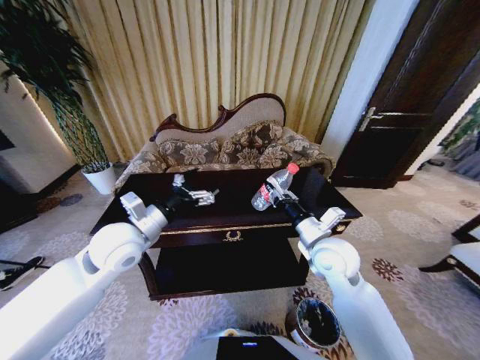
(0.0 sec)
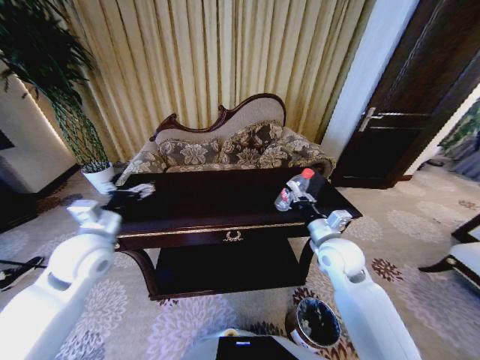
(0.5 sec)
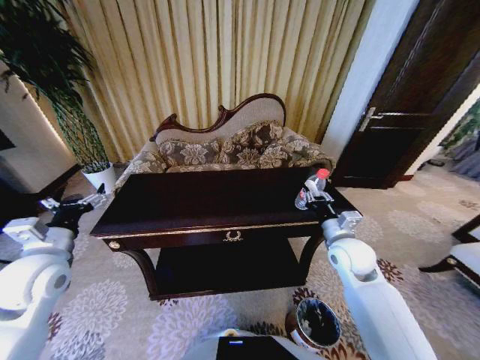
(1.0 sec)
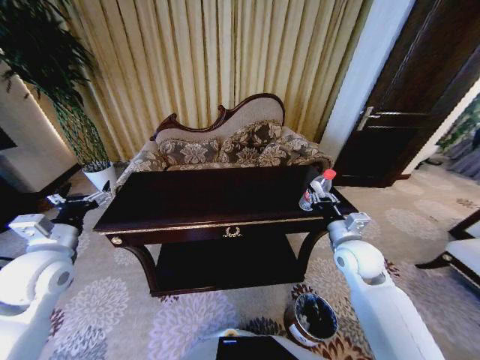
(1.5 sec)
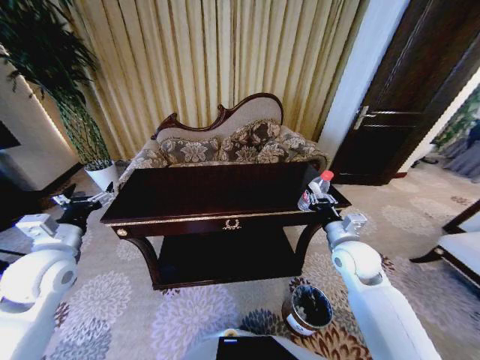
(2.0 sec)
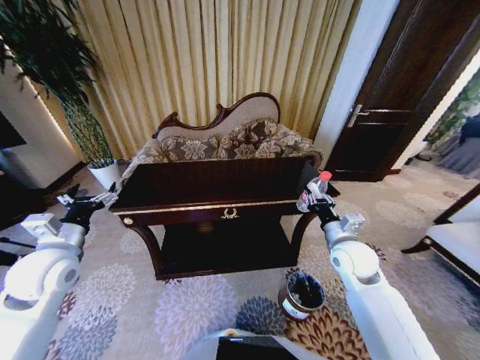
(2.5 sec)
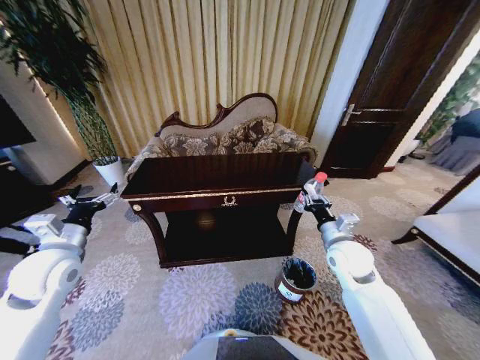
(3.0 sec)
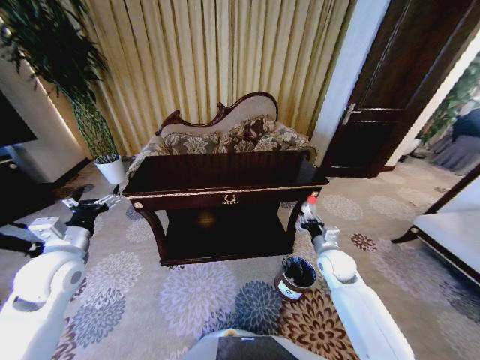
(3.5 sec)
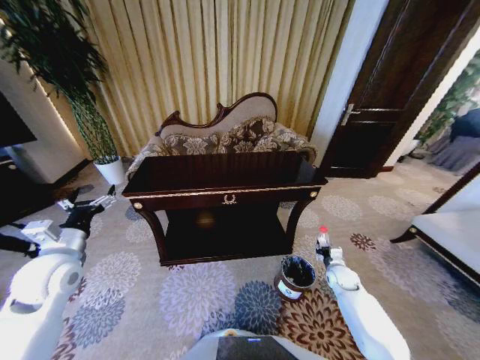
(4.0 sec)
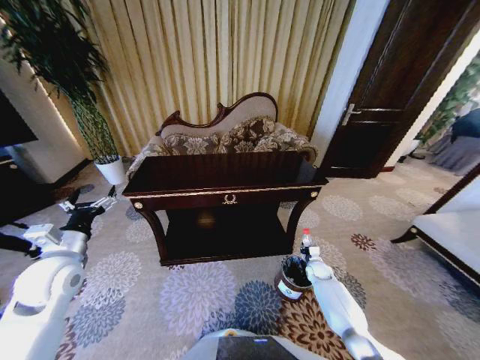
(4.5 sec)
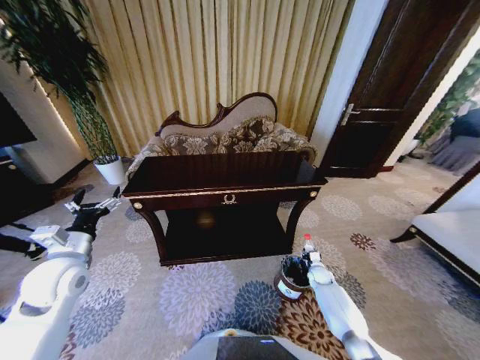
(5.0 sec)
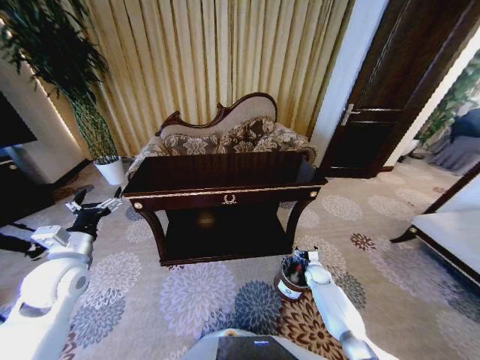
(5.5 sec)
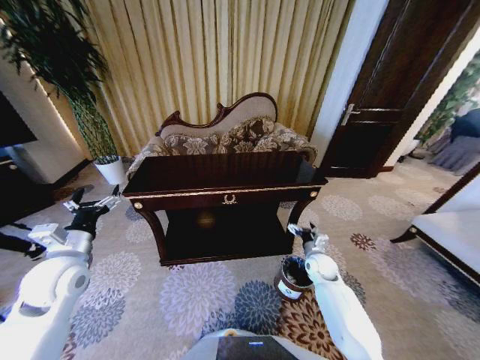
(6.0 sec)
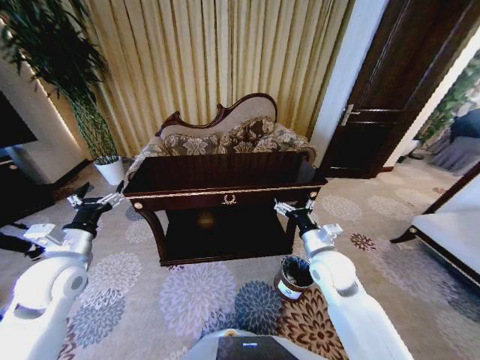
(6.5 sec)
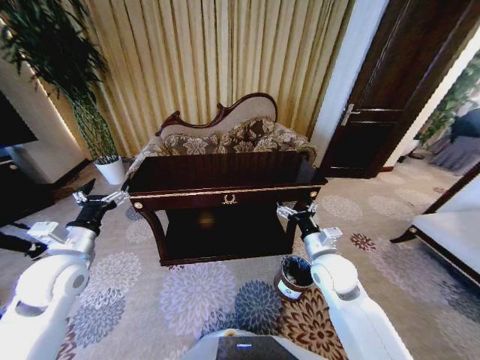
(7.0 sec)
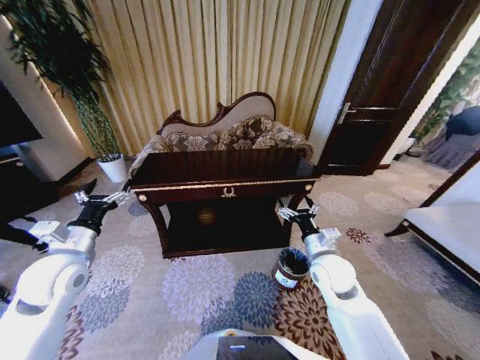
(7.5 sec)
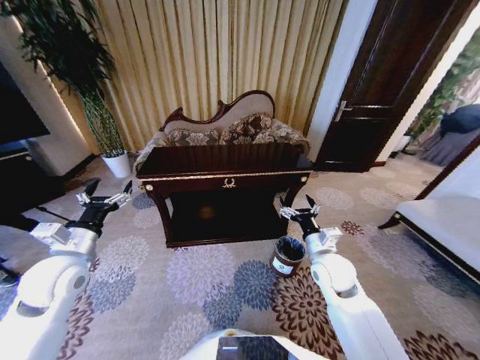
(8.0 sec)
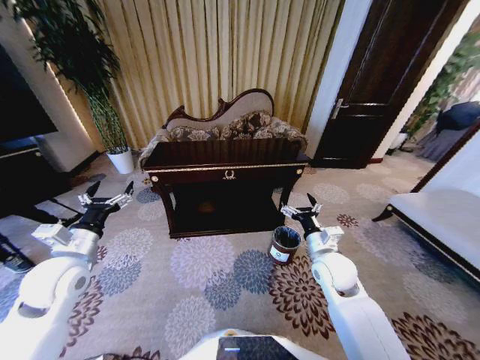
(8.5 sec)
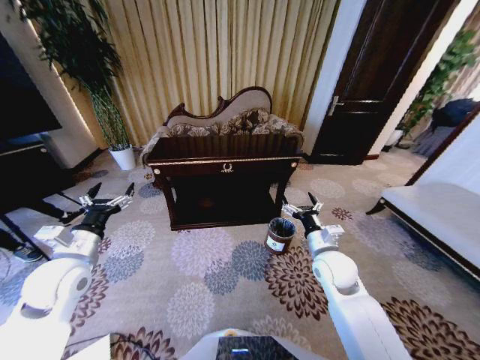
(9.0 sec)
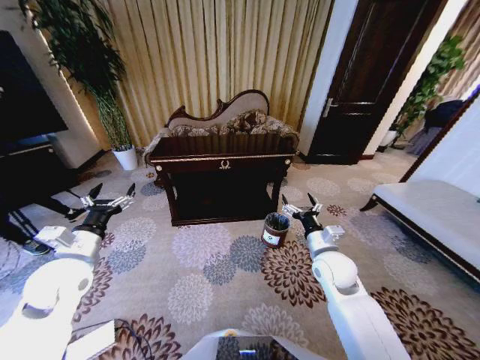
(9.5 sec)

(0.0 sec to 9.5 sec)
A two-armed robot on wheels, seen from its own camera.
Task of the whole recording: Move to the front of the table and place the trash on the table into the trash bin.
0.0 sec - 2.0 sec: The right gripper travels to the right by some 10 cm. The left gripper shifts approximately 15 cm to the left.
2.0 sec - 4.0 sec: The right gripper goes approximately 25 cm downward and to the right.
4.0 sec - 5.5 sec: The right gripper shifts approximately 10 cm downward, and opens.
5.5 sec - 7.5 sec: The right gripper shifts approximately 30 cm upward and to the left.

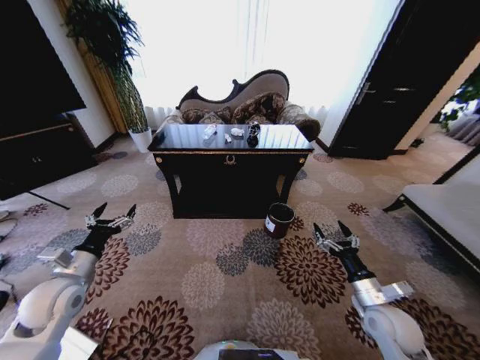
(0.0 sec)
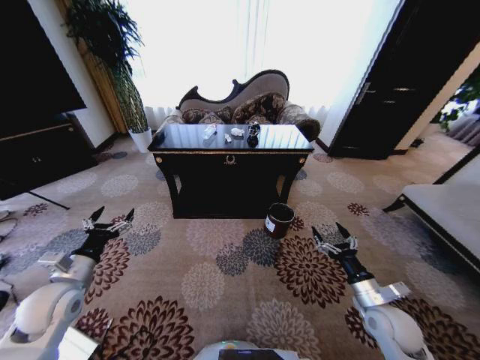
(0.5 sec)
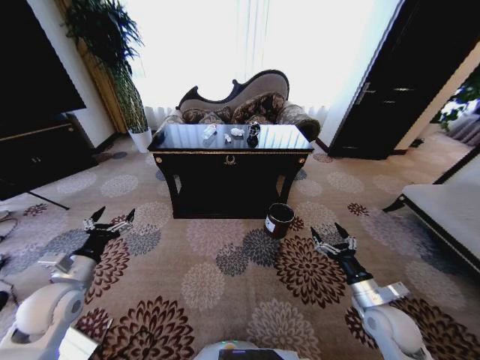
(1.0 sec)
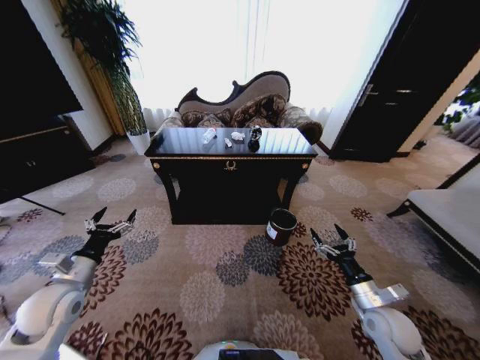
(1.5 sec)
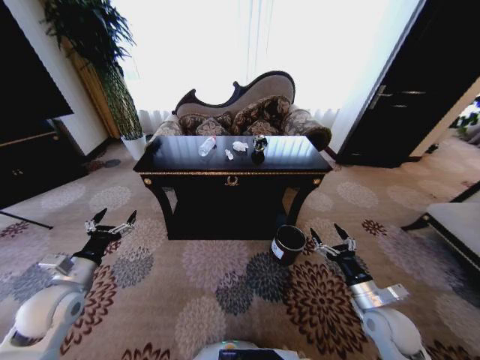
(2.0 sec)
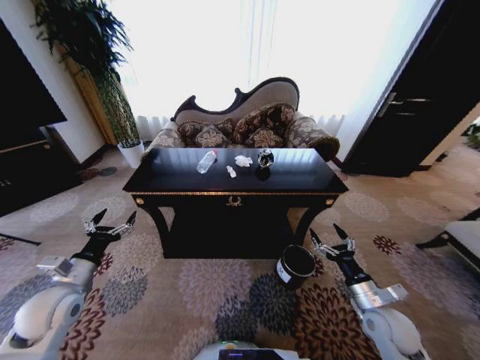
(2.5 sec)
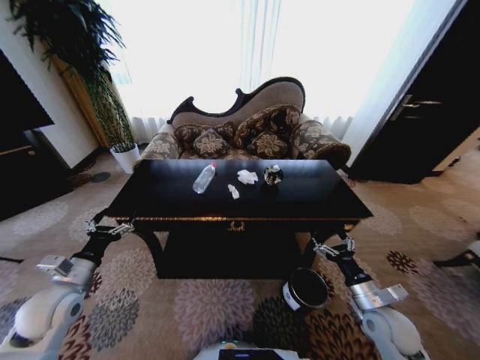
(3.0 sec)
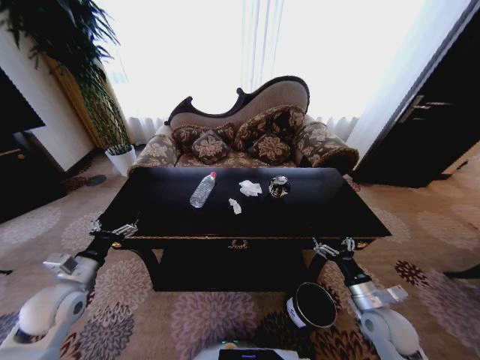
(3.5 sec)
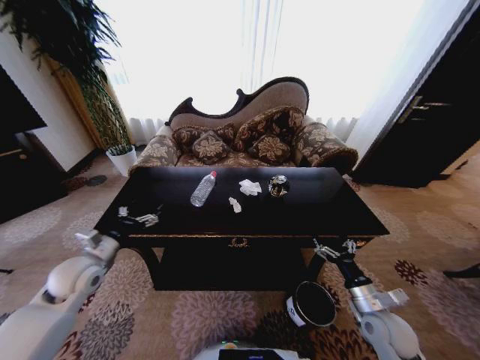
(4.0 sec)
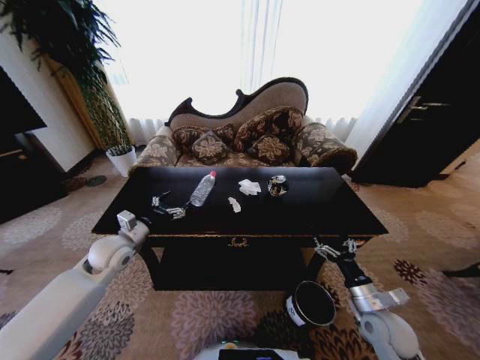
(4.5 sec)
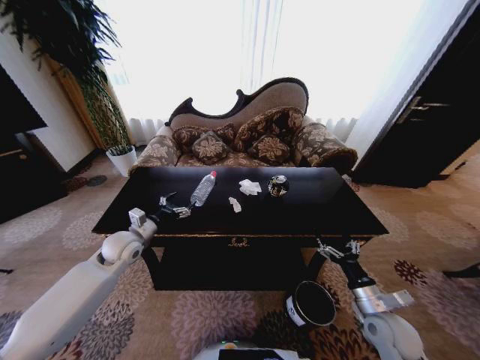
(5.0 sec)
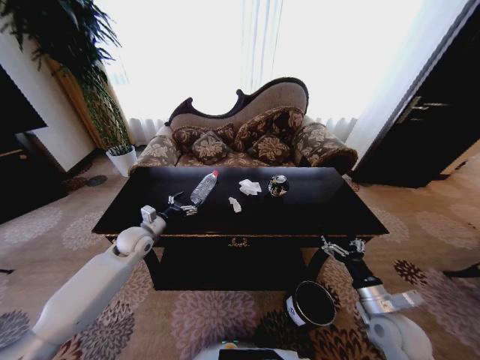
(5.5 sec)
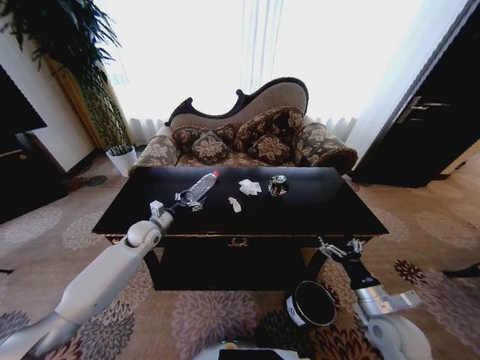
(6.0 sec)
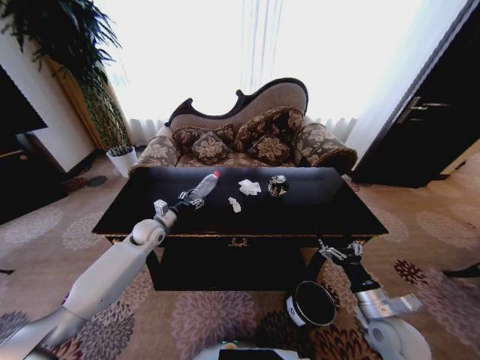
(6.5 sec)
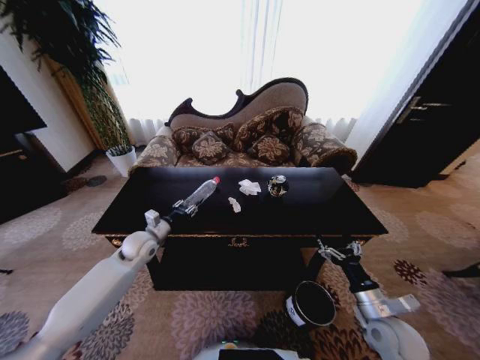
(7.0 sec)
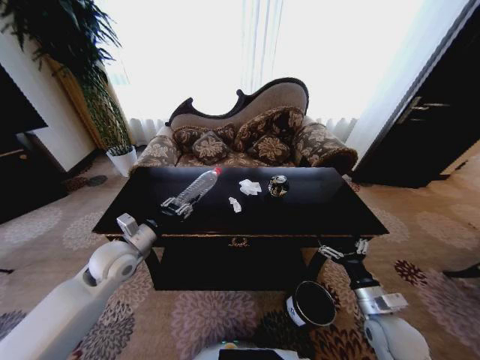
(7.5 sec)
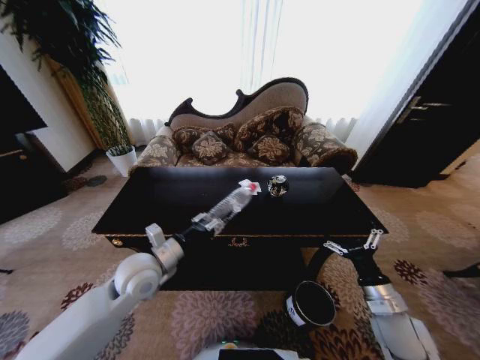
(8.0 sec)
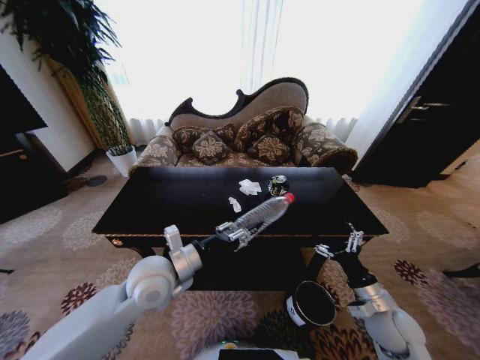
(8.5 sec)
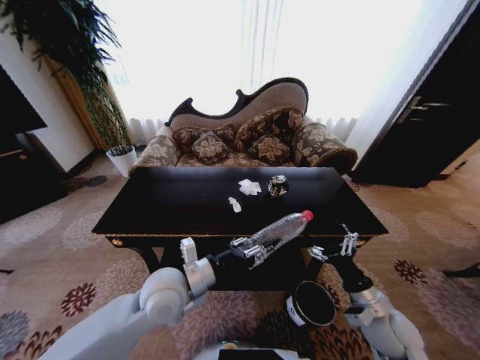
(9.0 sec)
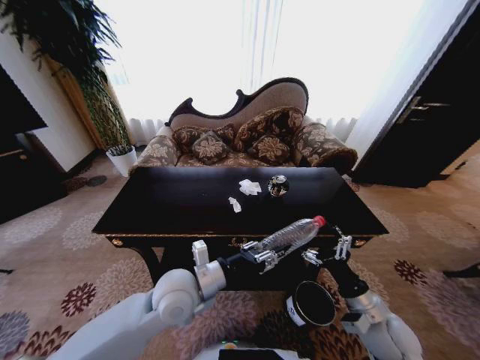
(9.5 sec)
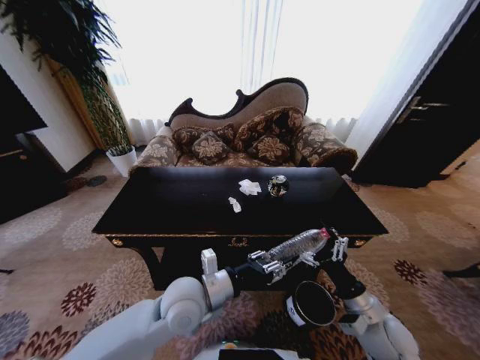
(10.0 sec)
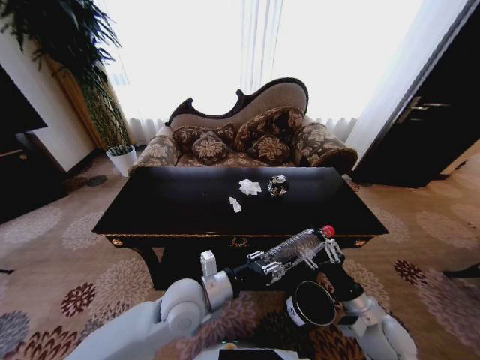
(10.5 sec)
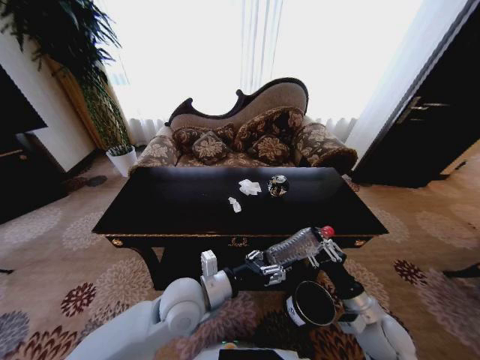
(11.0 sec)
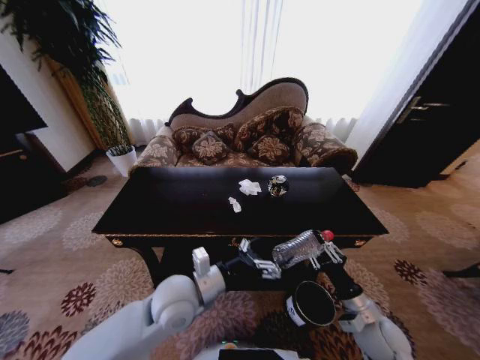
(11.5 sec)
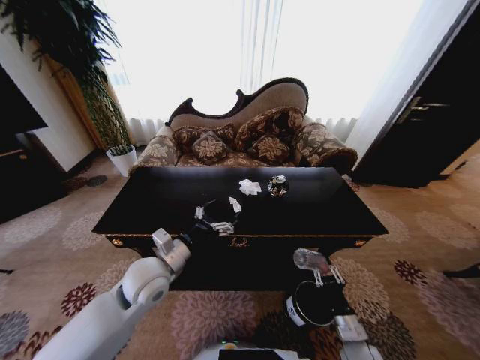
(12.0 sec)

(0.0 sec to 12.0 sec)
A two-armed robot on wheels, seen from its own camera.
Task of the whole recording: Move to the front of the table and place the trash on the table into the trash bin.
2.0 sec - 4.0 sec: The left gripper goes some 5 cm forward.
4.0 sec - 6.0 sec: The left gripper travels forward and to the right by about 20 cm.
6.0 sec - 8.0 sec: The left gripper moves backward, to the right and upward, roughly 20 cm, and closes.
8.0 sec - 10.0 sec: The left gripper shifts some 15 cm to the right and backward.
10.0 sec - 12.0 sec: The right gripper travels downward by some 15 cm, and closes up, while the left gripper moves to the left, about 10 cm, and opens up.

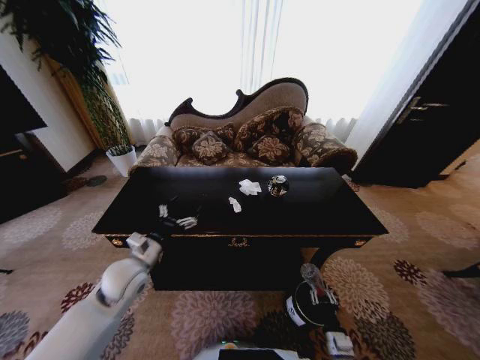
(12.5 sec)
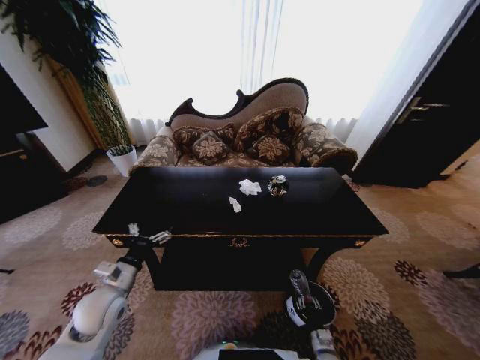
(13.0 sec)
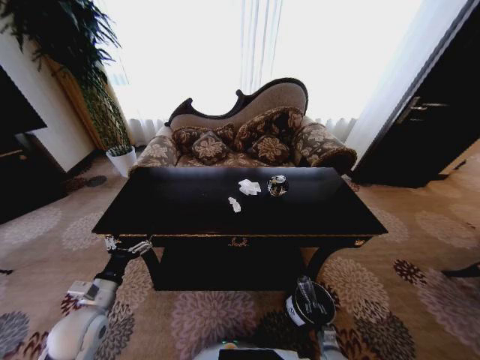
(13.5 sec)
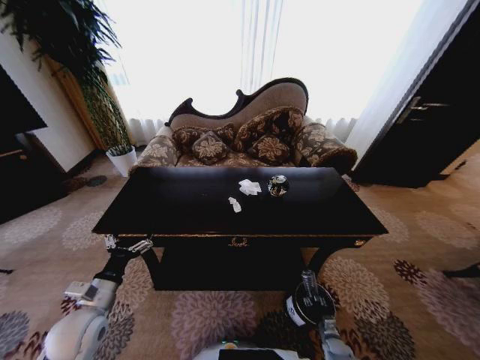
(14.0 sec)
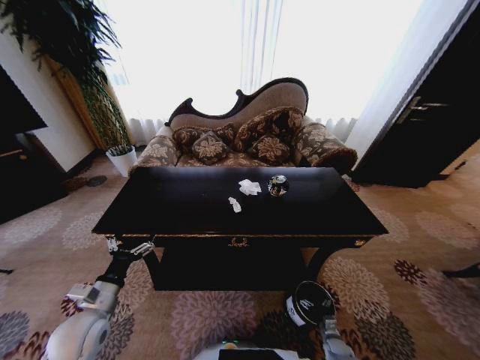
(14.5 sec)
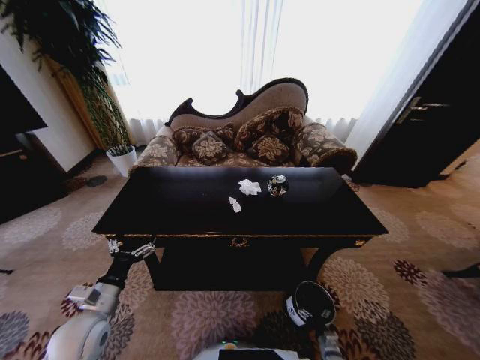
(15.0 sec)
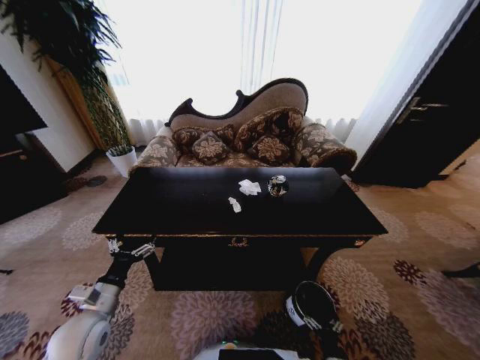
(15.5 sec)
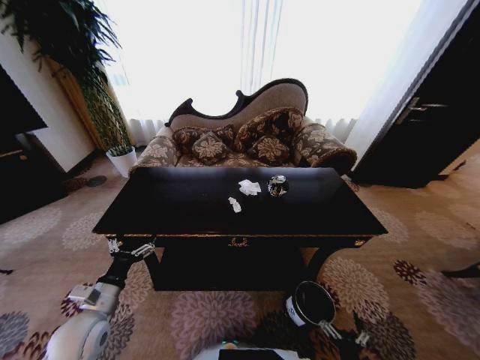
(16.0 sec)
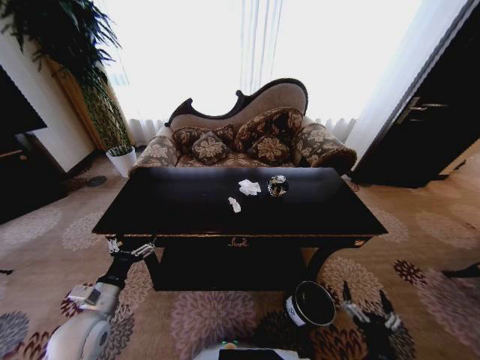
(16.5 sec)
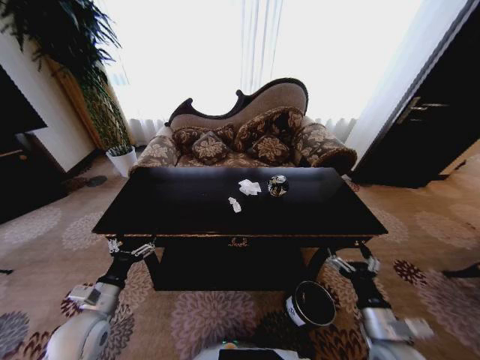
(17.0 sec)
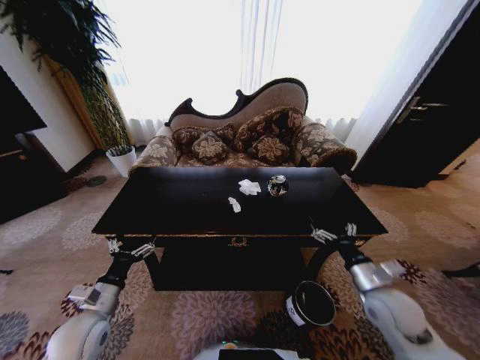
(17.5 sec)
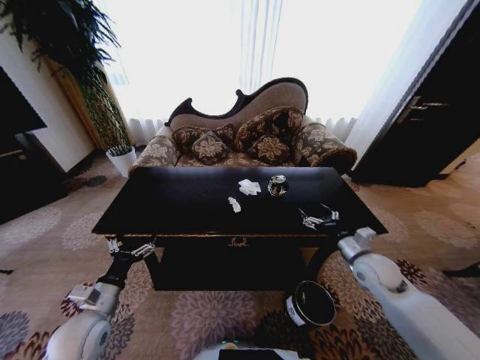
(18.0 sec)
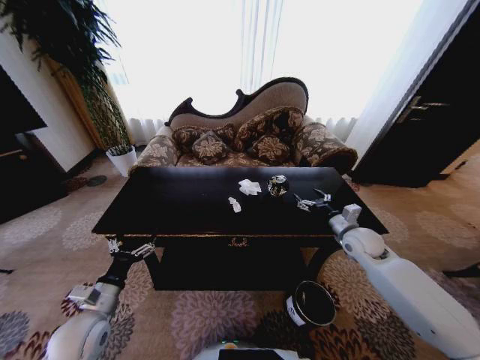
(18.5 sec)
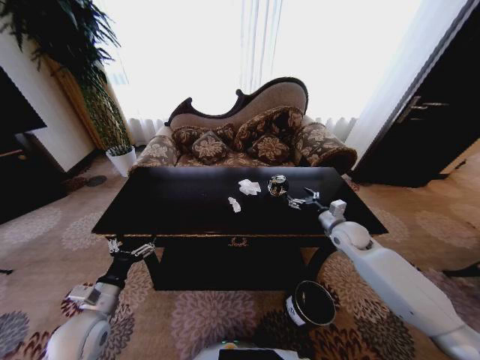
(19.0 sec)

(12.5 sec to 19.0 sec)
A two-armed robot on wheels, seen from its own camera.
Task of the whole recording: Move to the front of the table and place the trash on the table into the trash bin.
12.5 sec - 14.5 sec: The right gripper heads downward, to the right and forward, covering roughly 15 cm, and opens up, while the left gripper heads backward and to the left, covering approximately 10 cm.
14.5 sec - 17.0 sec: The right gripper is displaced upward by some 35 cm.
17.0 sec - 19.0 sec: The right gripper heads forward, covering about 30 cm.
